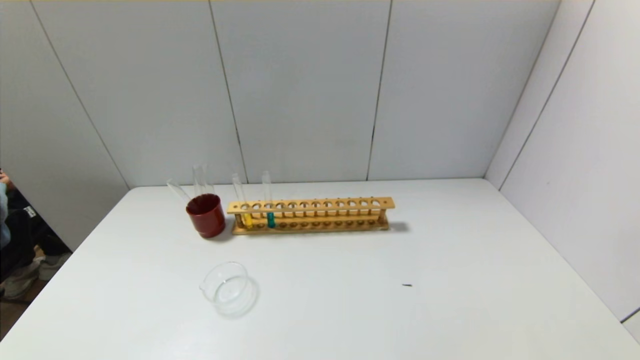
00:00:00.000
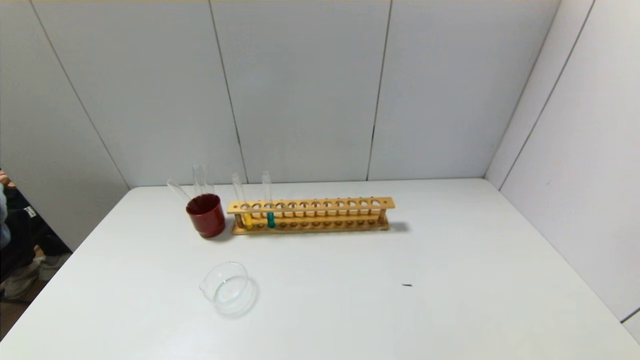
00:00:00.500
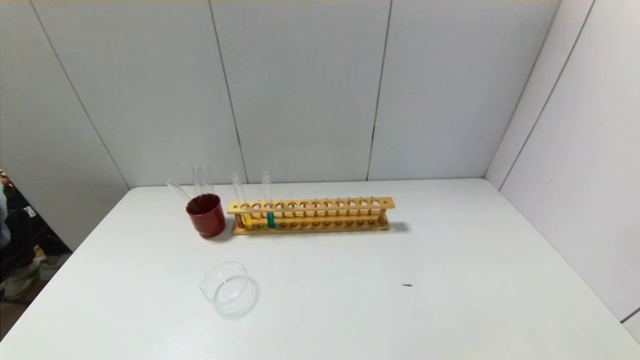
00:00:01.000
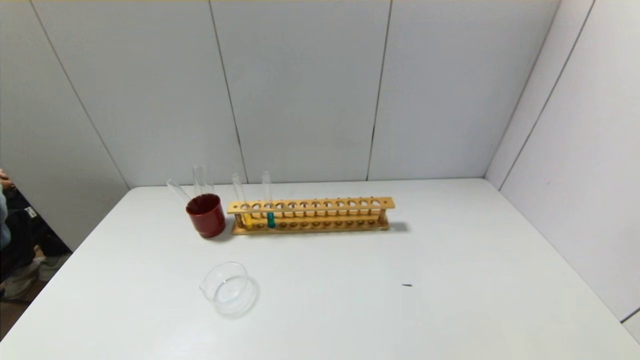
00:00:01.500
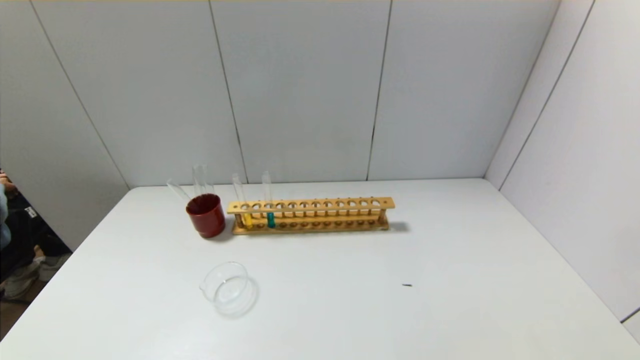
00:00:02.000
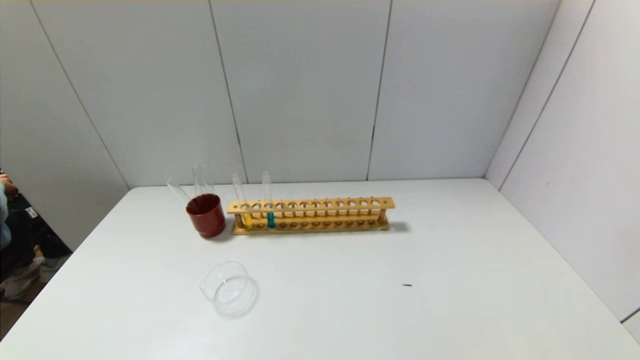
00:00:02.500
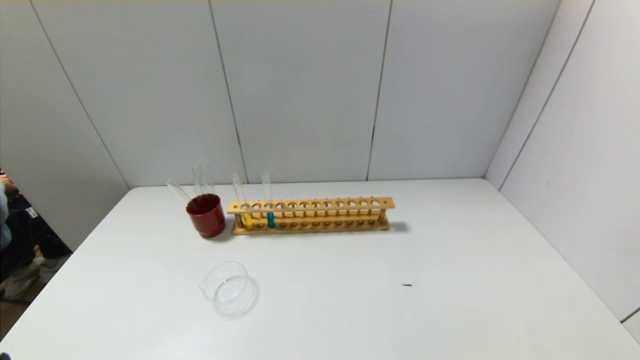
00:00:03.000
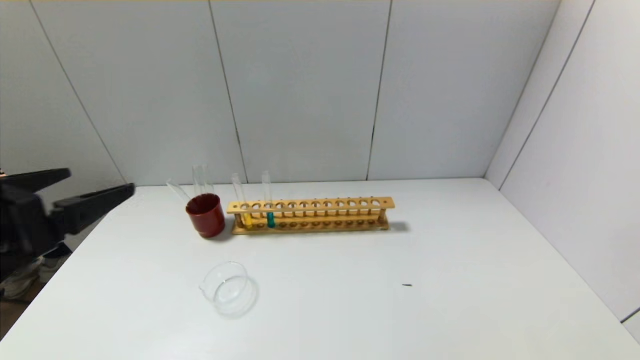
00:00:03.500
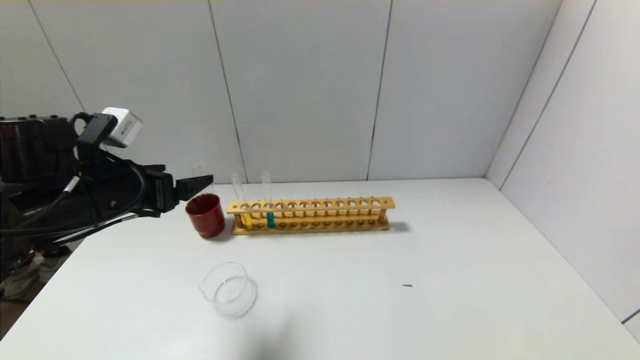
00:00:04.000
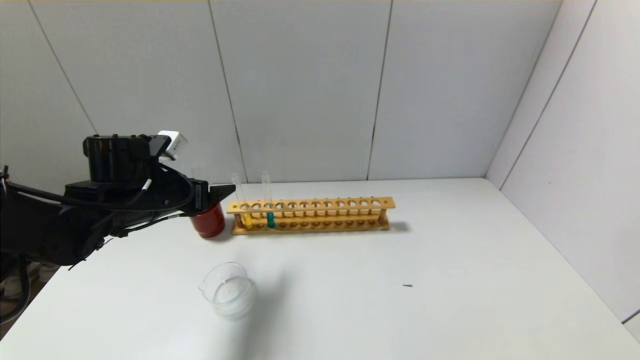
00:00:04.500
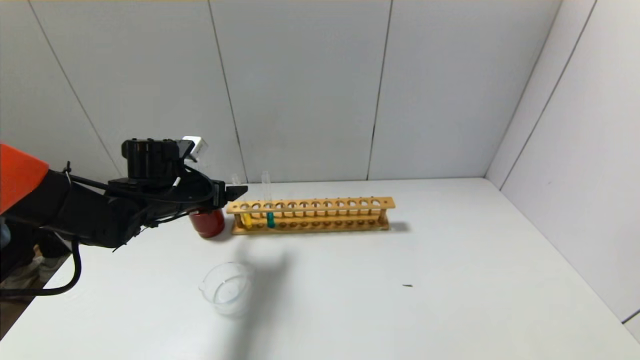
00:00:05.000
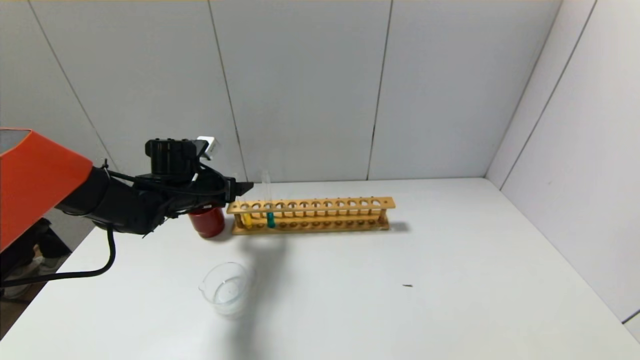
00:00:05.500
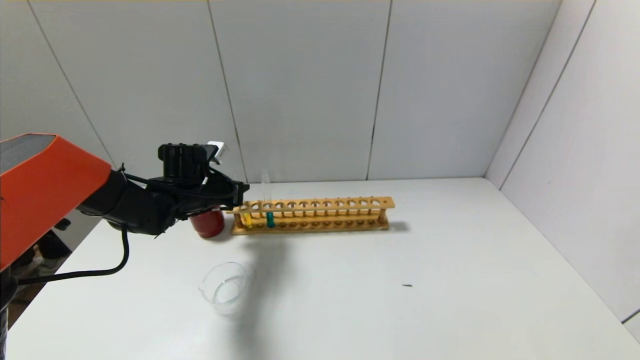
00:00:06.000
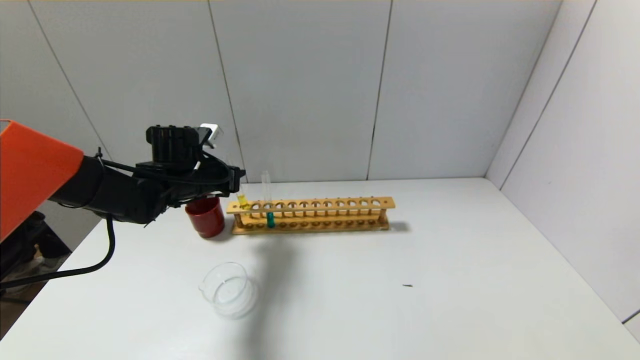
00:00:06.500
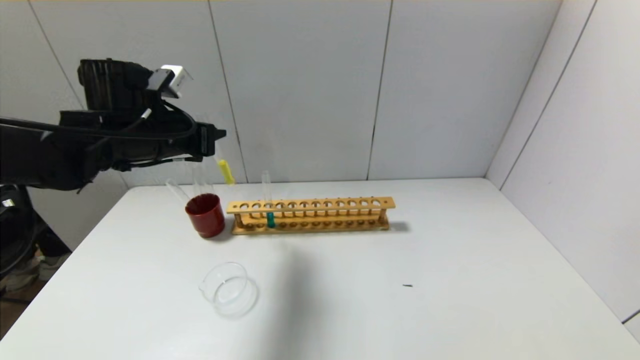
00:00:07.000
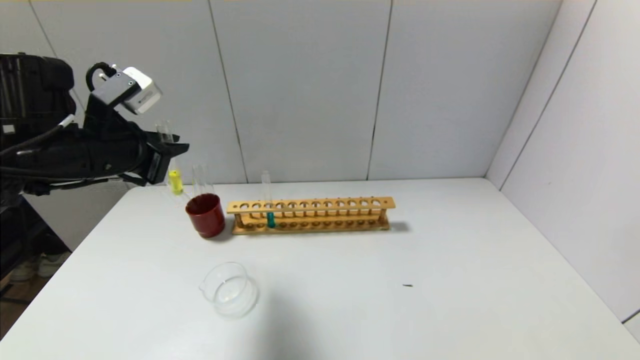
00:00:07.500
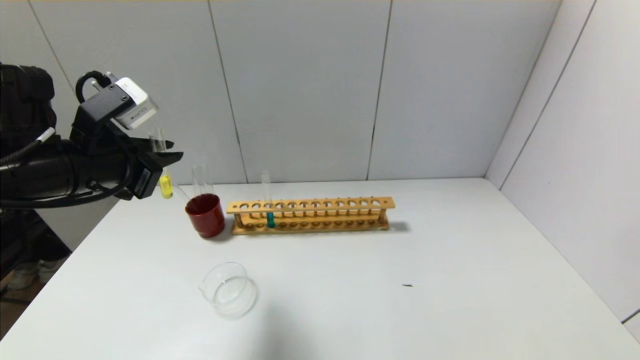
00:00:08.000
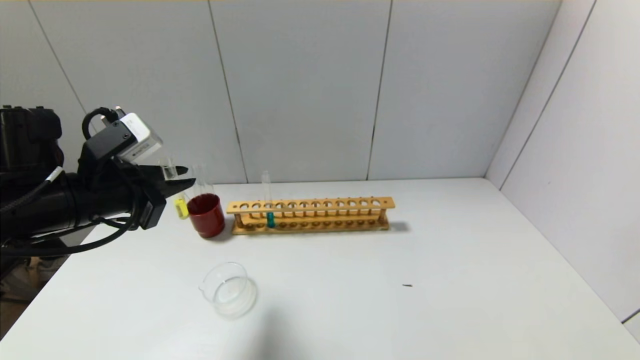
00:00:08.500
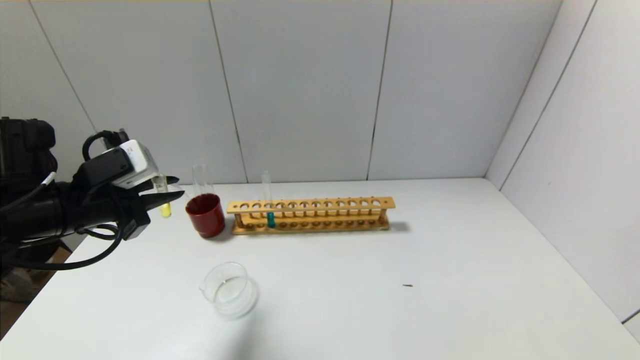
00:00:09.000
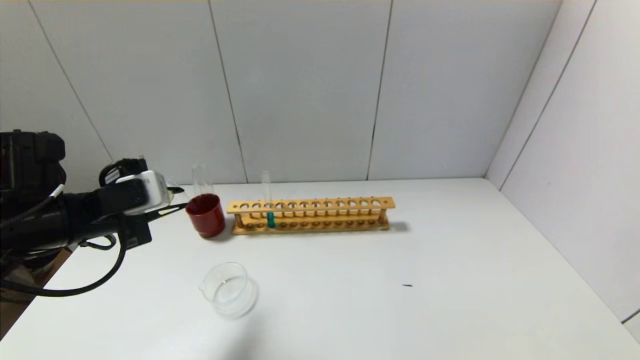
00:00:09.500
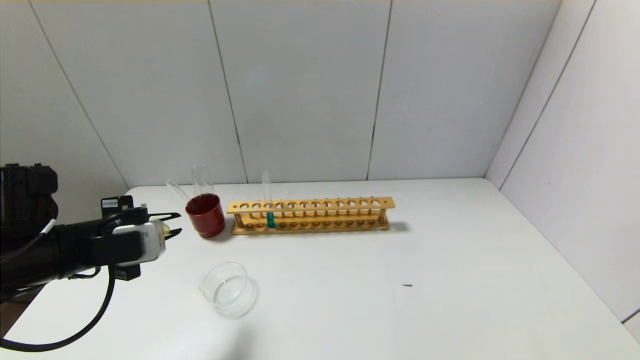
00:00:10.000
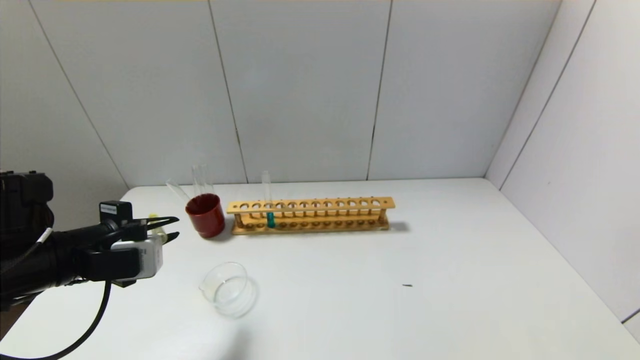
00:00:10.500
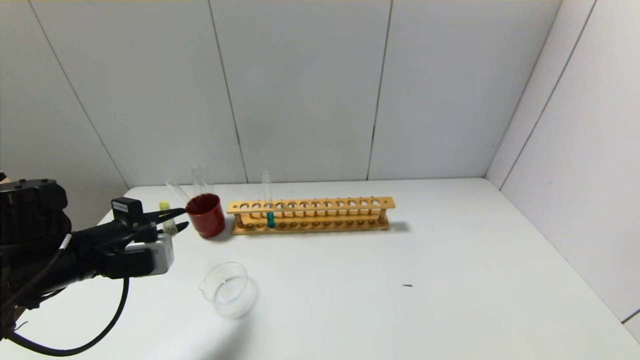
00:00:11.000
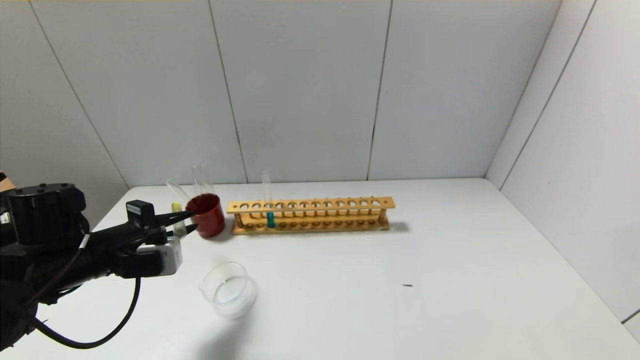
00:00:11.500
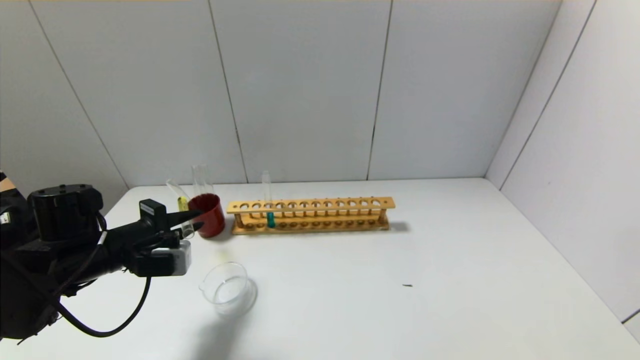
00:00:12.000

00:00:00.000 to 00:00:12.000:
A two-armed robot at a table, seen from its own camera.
Step, 00:00:00.000 to 00:00:06.000: Grasp the yellow reagent with the left gripper.
00:00:00.000 to 00:00:02.000: Neither gripper changes place.
00:00:02.000 to 00:00:04.000: The left gripper shifts roughly 30 cm forward and upward.
00:00:04.000 to 00:00:06.000: The left gripper shifts some 20 cm forward and downward, and closes.
00:00:06.000 to 00:00:08.000: The left gripper moves backward and upward, roughly 20 cm.
00:00:08.000 to 00:00:10.000: The left gripper goes roughly 10 cm downward.
00:00:10.000 to 00:00:12.000: The left gripper shifts approximately 5 cm downward.

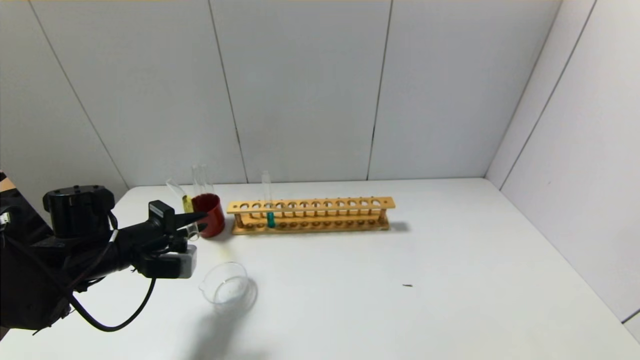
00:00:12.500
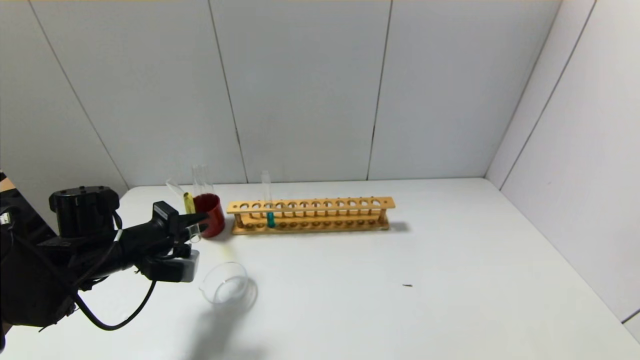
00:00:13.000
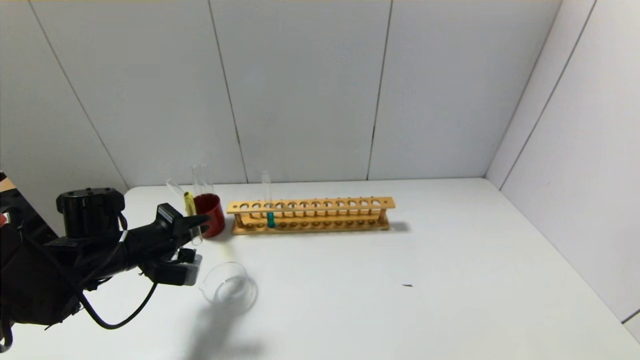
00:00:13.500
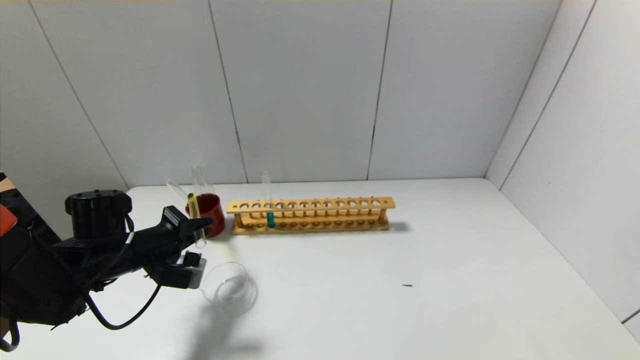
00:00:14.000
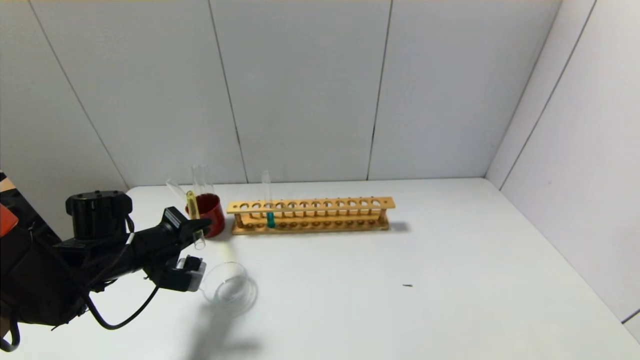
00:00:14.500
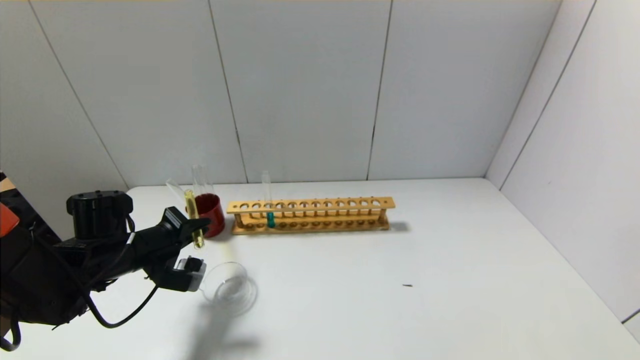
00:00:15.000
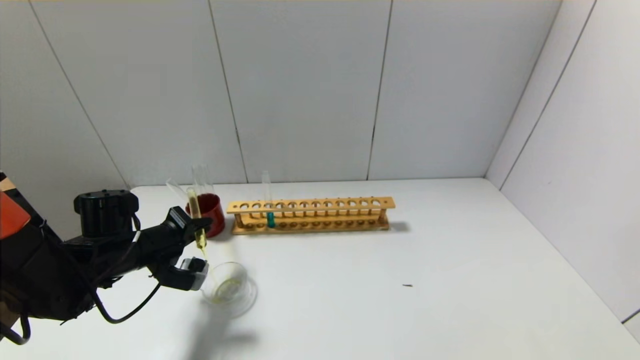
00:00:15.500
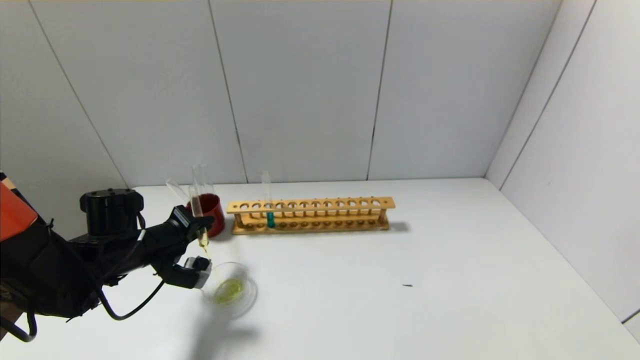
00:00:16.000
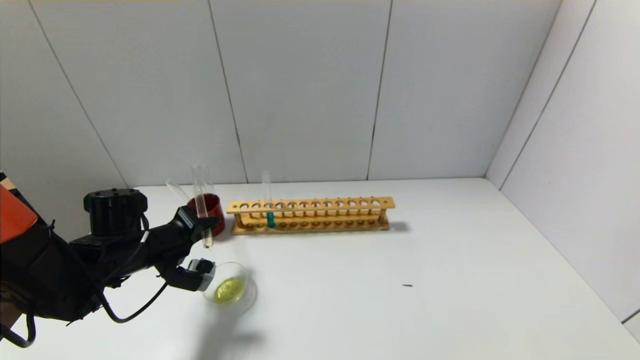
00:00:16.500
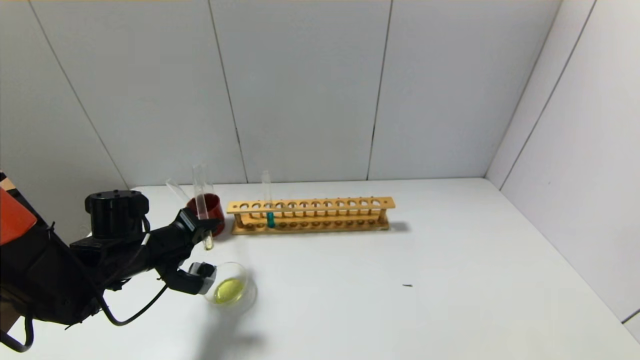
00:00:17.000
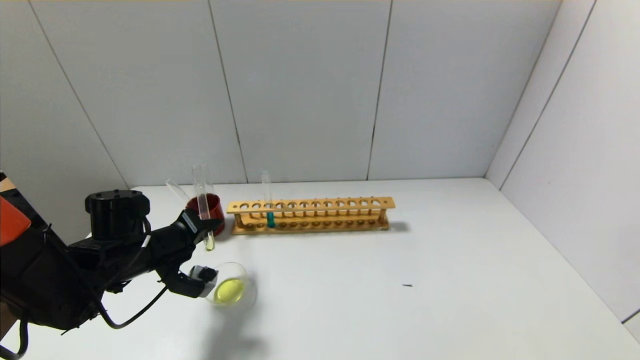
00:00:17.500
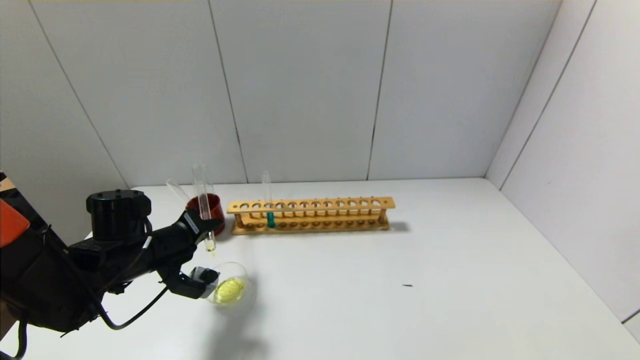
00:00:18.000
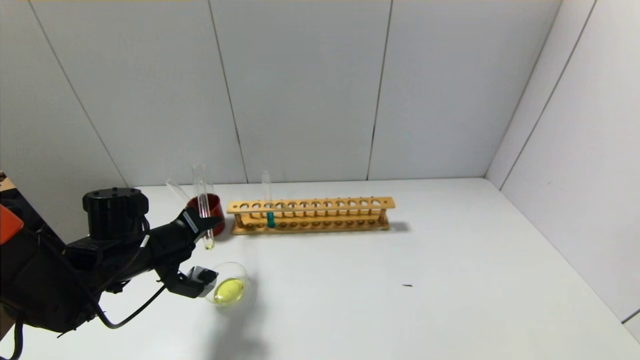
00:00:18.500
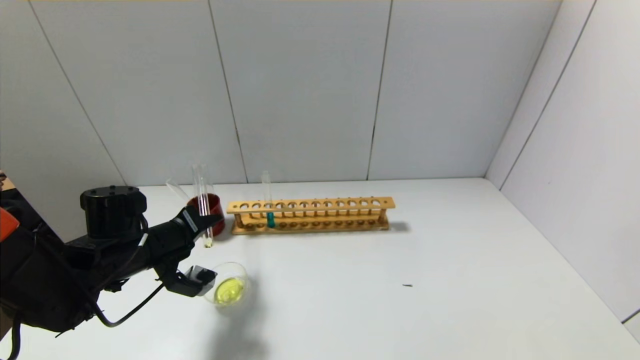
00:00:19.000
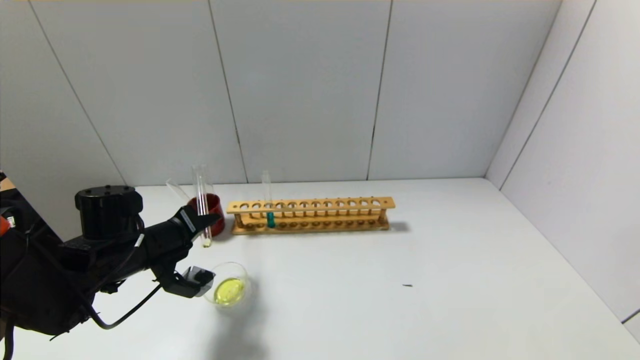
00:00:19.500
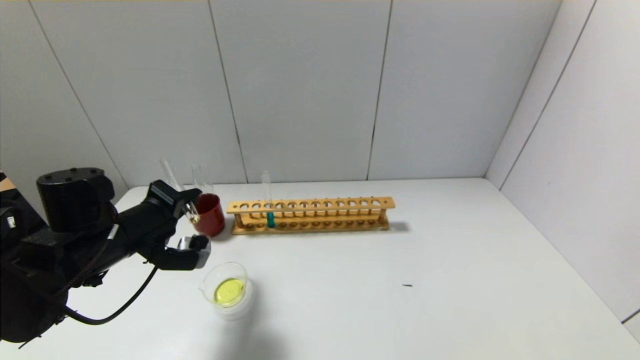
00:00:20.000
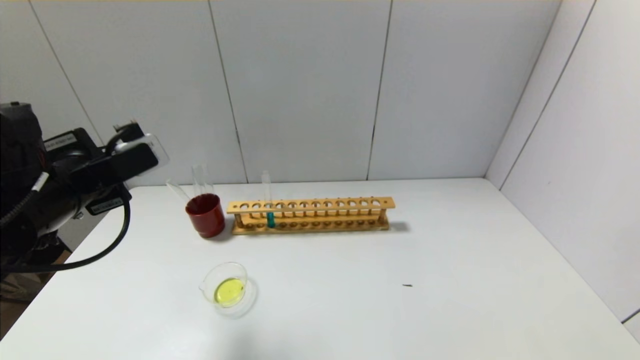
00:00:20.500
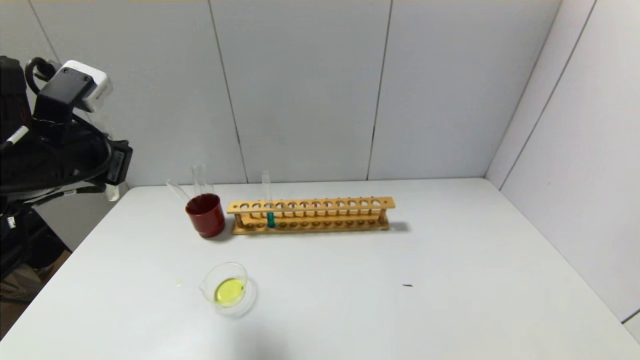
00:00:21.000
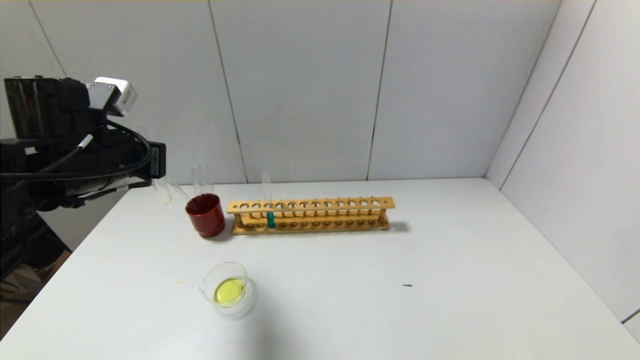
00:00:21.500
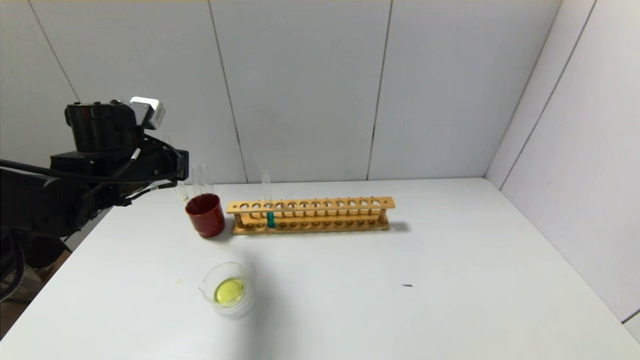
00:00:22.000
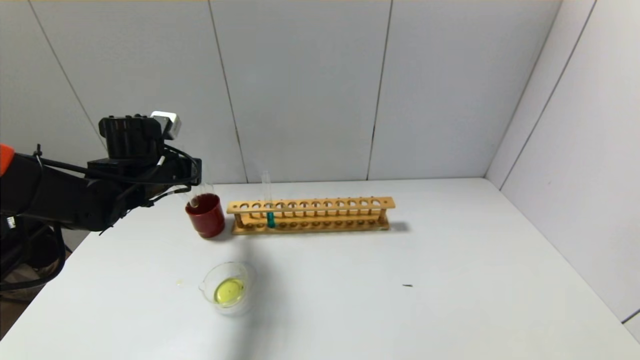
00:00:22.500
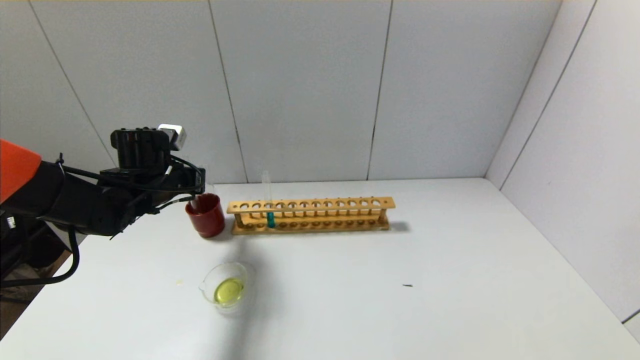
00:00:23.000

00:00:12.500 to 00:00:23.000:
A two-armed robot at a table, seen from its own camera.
Step, 00:00:12.500 to 00:00:20.000: Pour the yellow reagent into the graduated cylinder with the left gripper.
00:00:12.500 to 00:00:14.500: The grippers stay close to where they were, moving slightly.
00:00:14.500 to 00:00:16.500: The grippers stay close to where they were, moving slightly.
00:00:16.500 to 00:00:19.000: The grippers stay close to where they were, moving slightly.
00:00:19.000 to 00:00:21.000: The left gripper travels upward by approximately 15 cm.
00:00:21.000 to 00:00:23.000: The left gripper shifts about 20 cm forward and downward.
